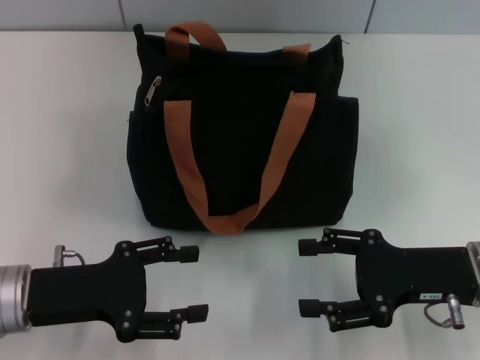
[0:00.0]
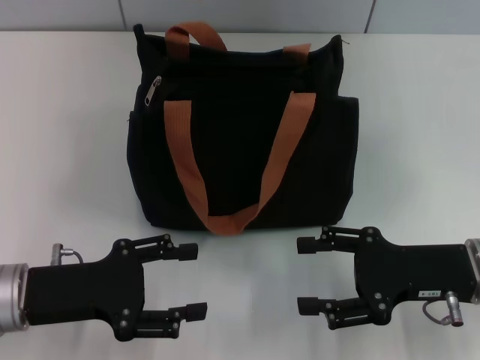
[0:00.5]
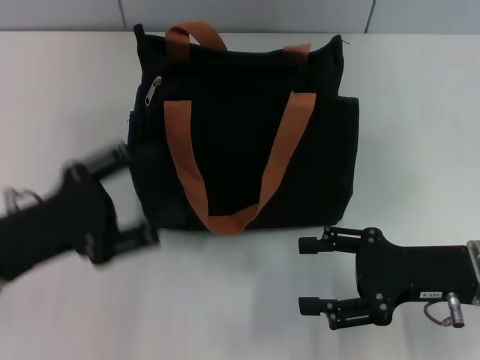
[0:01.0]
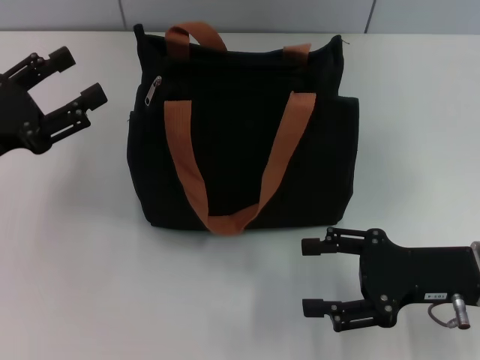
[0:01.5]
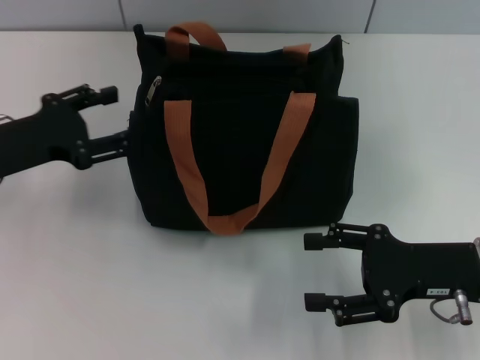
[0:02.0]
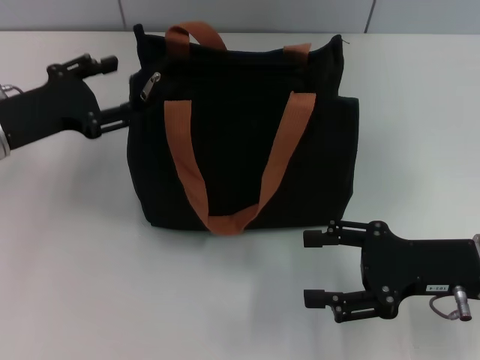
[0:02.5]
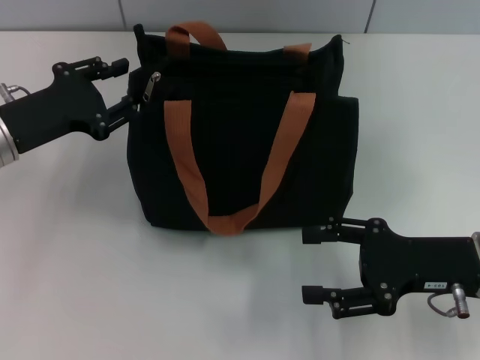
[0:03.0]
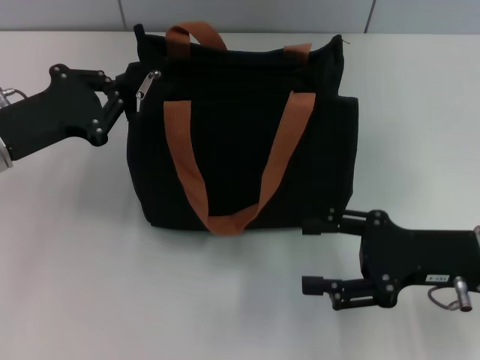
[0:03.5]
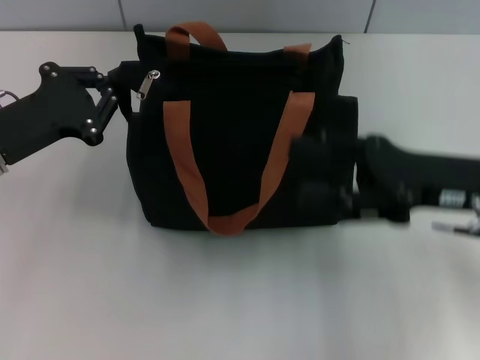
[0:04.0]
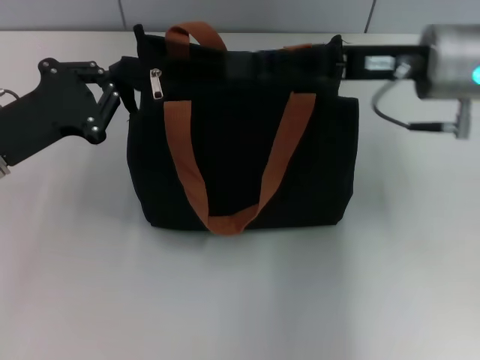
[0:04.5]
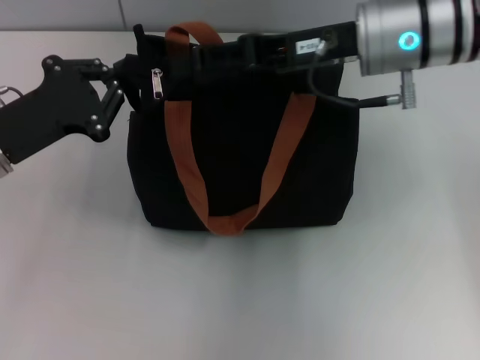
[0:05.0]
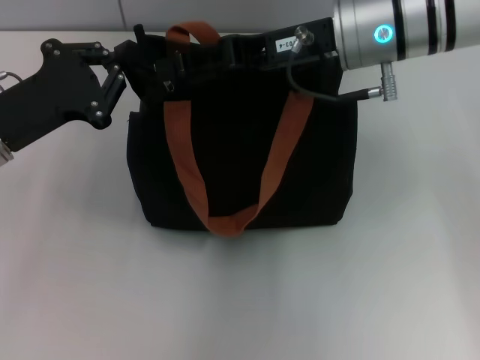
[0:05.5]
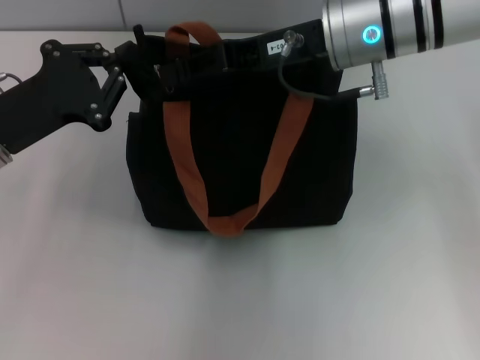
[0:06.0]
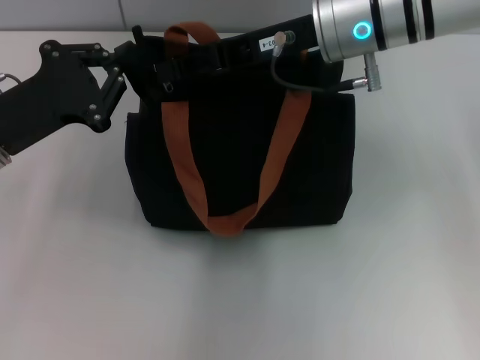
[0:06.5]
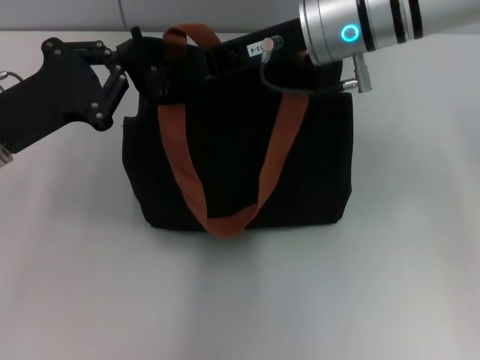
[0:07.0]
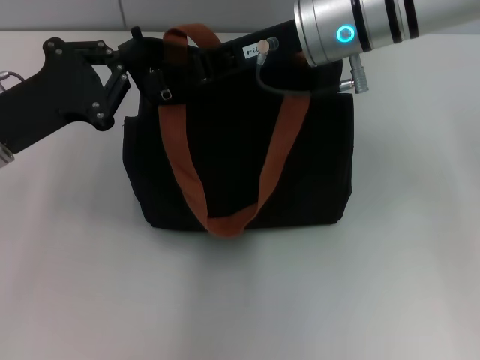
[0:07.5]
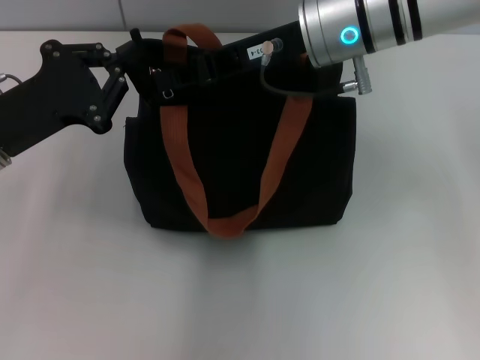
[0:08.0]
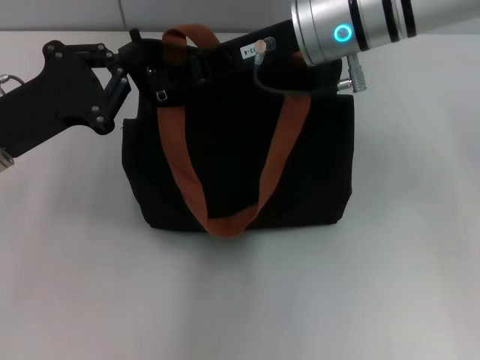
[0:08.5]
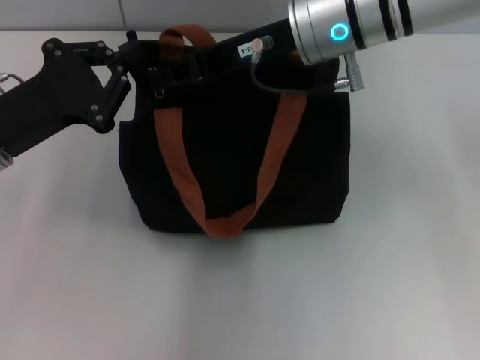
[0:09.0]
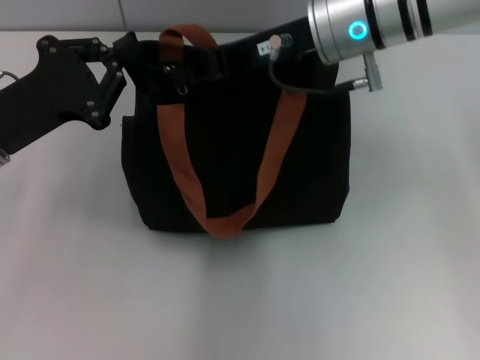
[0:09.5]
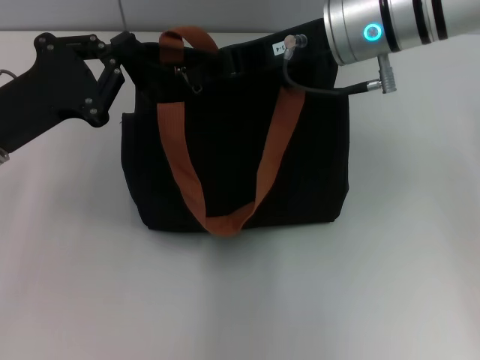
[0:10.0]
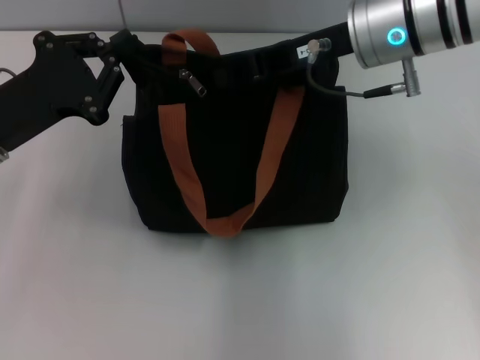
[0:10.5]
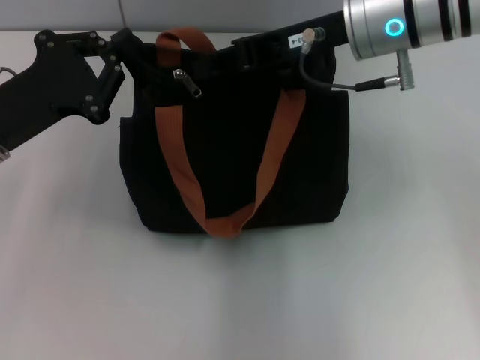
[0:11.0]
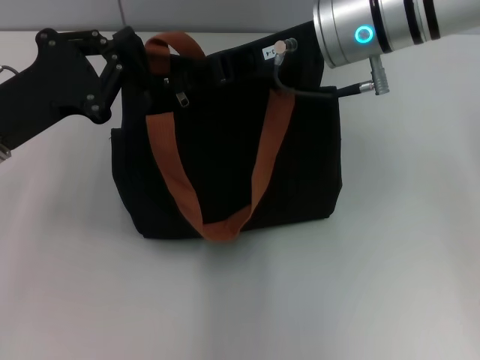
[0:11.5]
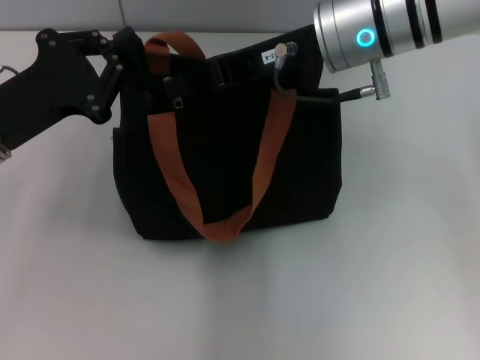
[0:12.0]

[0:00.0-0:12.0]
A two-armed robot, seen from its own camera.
0:00.0 to 0:02.0: The left gripper travels forward and to the left by some 10 cm.
0:02.0 to 0:04.0: The right gripper heads upward, covering about 5 cm, while the left gripper closes.
0:04.0 to 0:06.0: The right gripper heads to the left, forward and upward, covering roughly 20 cm.
0:06.0 to 0:08.0: The right gripper closes its fingers.
0:08.0 to 0:12.0: The grippers move only a little.

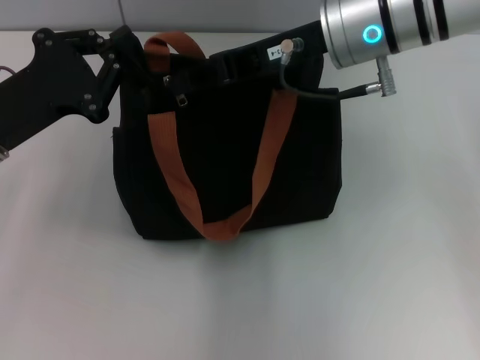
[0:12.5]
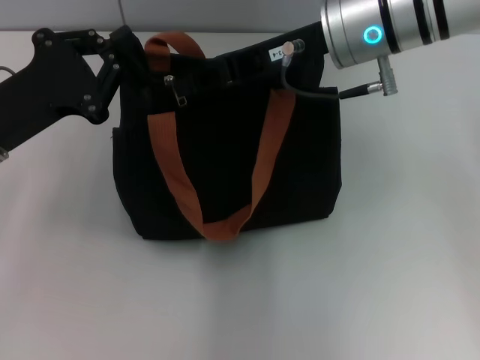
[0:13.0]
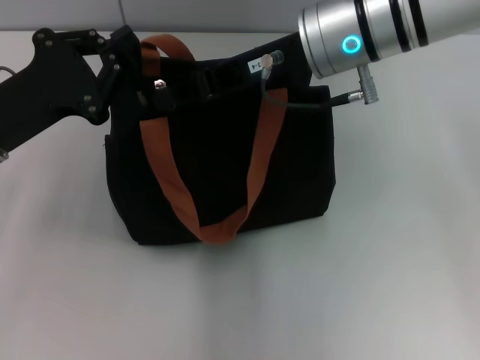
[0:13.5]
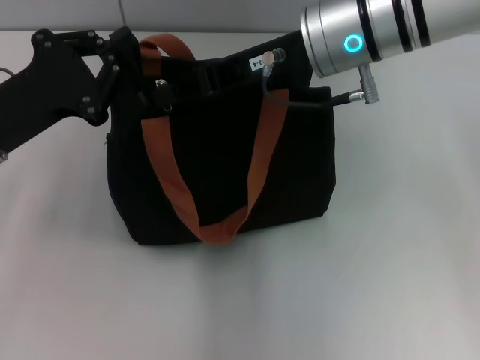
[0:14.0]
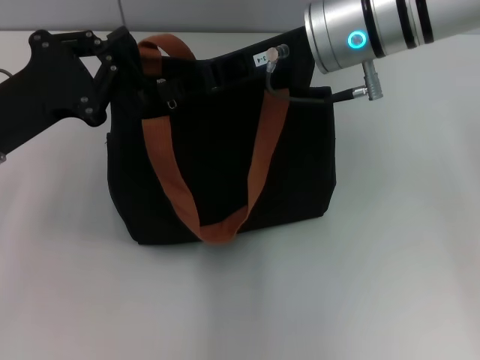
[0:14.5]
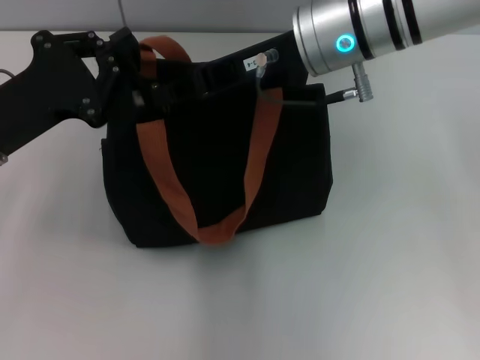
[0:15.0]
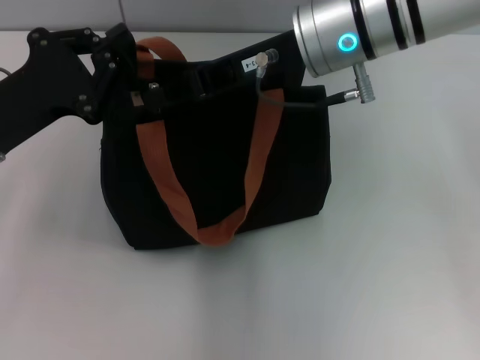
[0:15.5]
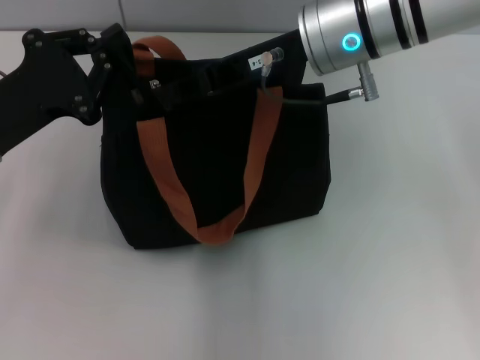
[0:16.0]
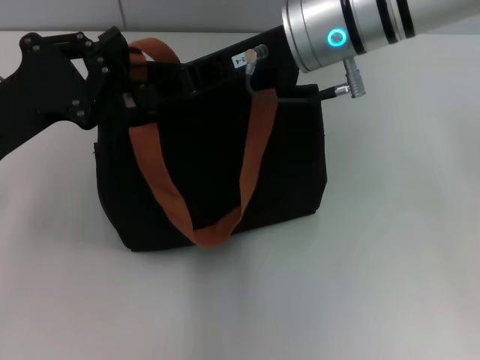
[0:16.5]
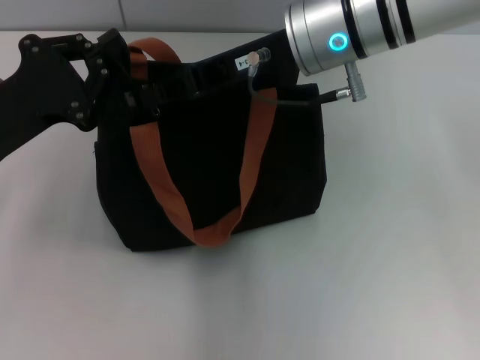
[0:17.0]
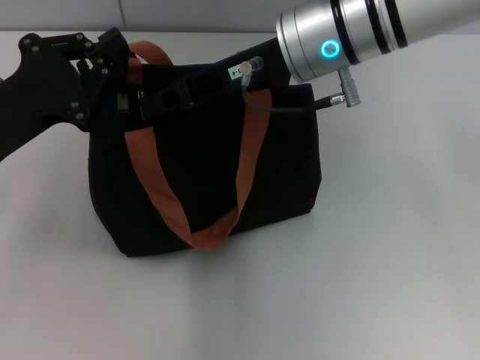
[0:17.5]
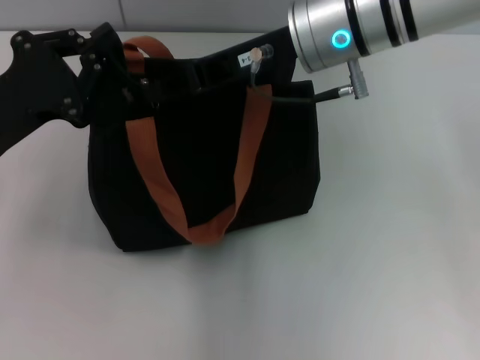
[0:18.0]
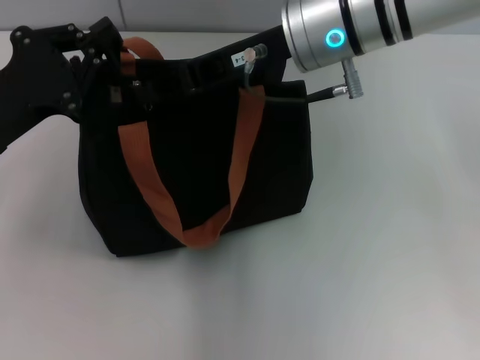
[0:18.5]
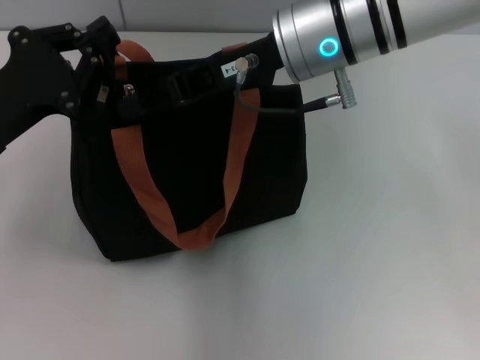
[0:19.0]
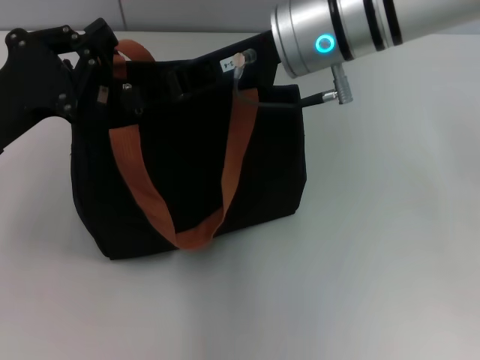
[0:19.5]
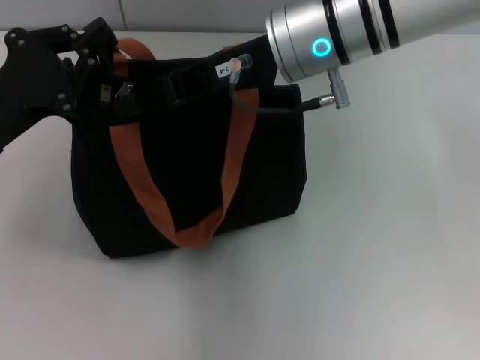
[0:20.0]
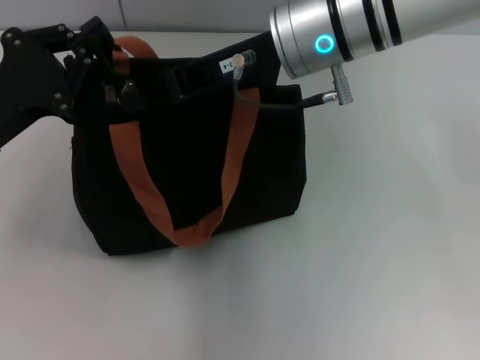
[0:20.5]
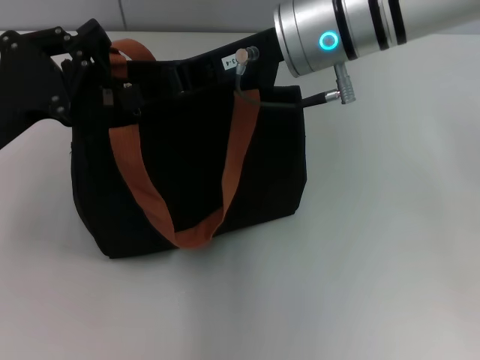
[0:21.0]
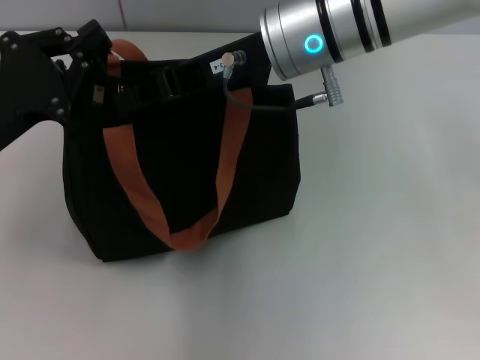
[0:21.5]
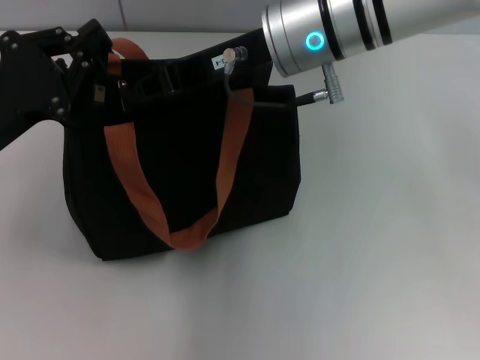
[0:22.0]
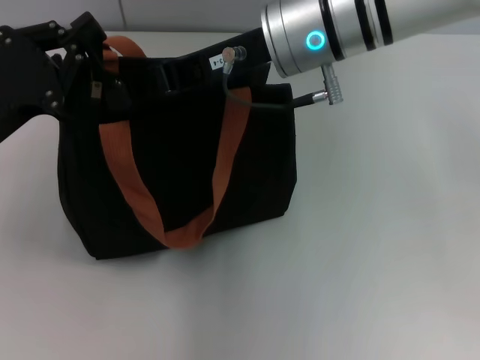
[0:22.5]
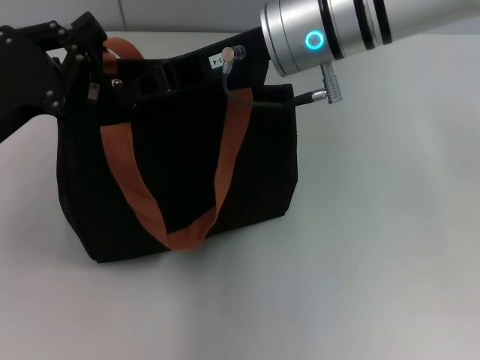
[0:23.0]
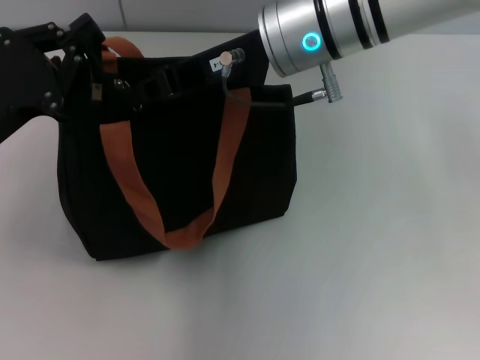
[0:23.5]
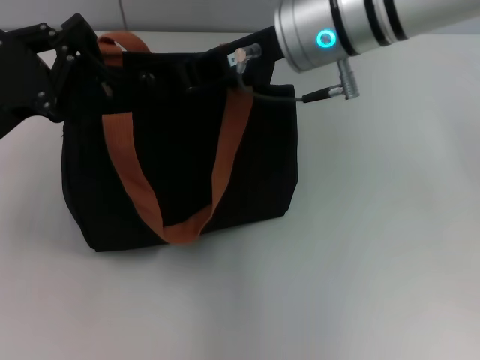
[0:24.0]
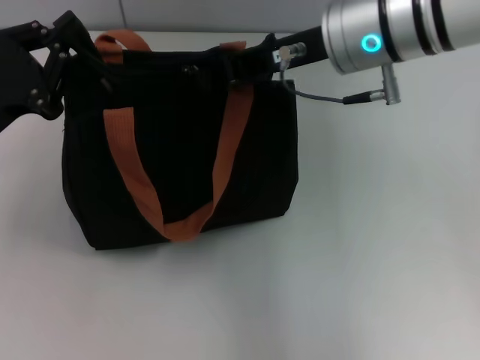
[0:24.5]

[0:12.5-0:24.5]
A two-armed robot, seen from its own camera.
0:12.5 to 0:16.5: The grippers stay close to where they were, moving slightly.
0:16.5 to 0:18.5: Both grippers stay about where they are.
0:18.5 to 0:20.5: The grippers make only small movements.
0:20.5 to 0:22.5: Neither gripper changes place.
0:22.5 to 0:24.5: There are only small adjustments of the grippers.

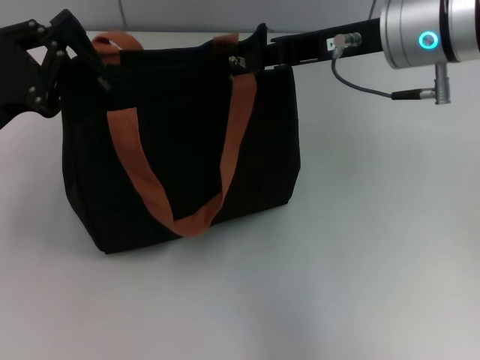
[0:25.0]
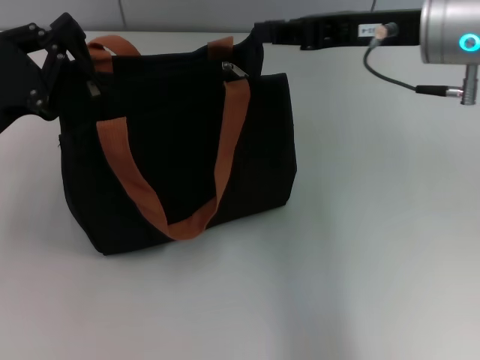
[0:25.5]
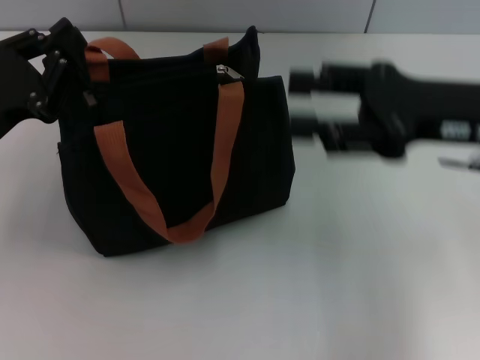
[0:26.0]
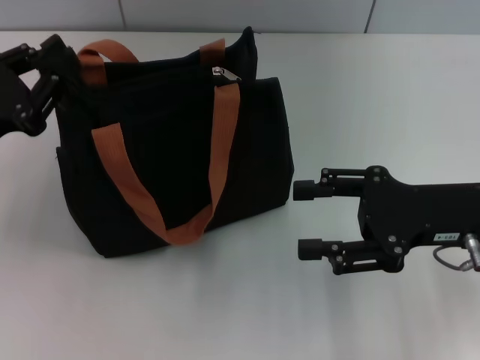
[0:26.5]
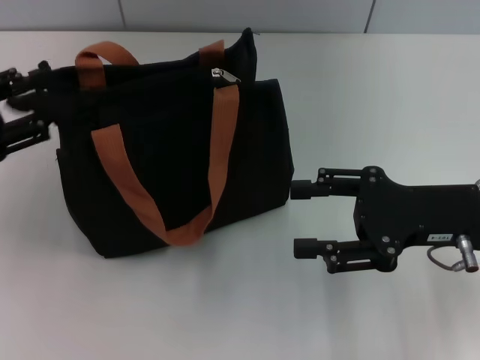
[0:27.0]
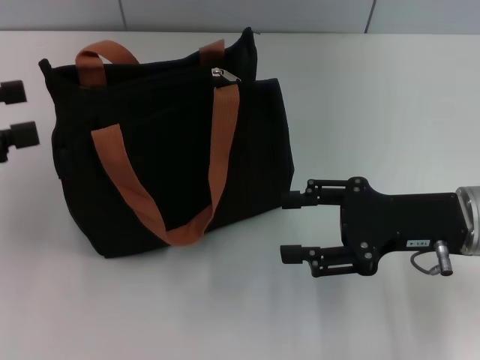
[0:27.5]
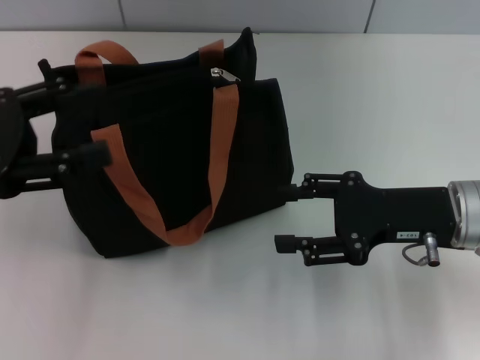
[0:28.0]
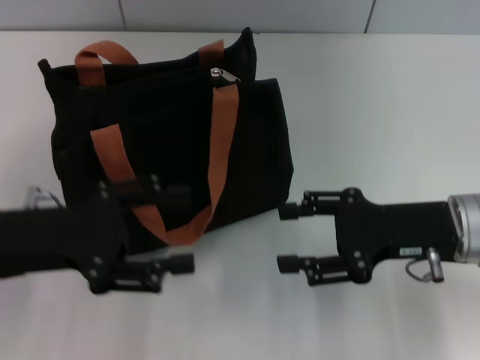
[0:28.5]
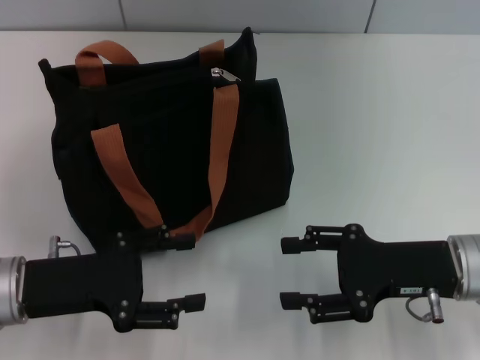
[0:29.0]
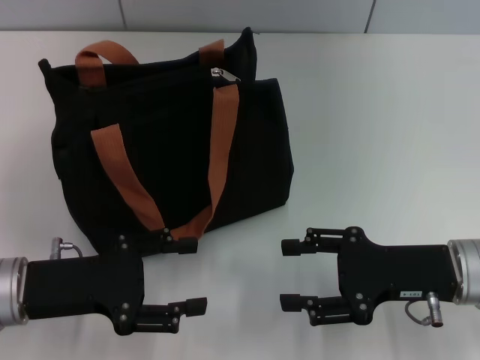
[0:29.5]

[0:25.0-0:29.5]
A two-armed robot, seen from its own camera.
Step, 0:26.0 to 0:27.0: Grab the zipper with your left hand.
0:25.0 to 0:27.0: The right gripper shifts approximately 15 cm downward, backward and to the right, and opens up. The left gripper shifts about 5 cm to the left, and opens.
0:27.0 to 0:29.5: The left gripper travels to the right and downward by approximately 15 cm, and opens its fingers. The right gripper travels downward by about 5 cm.
